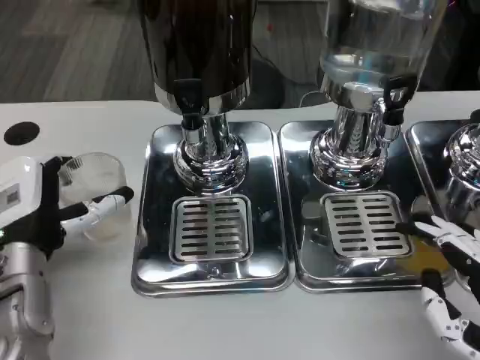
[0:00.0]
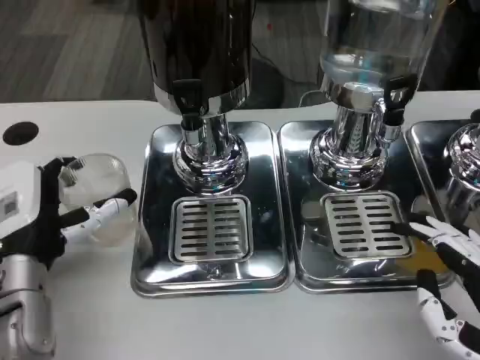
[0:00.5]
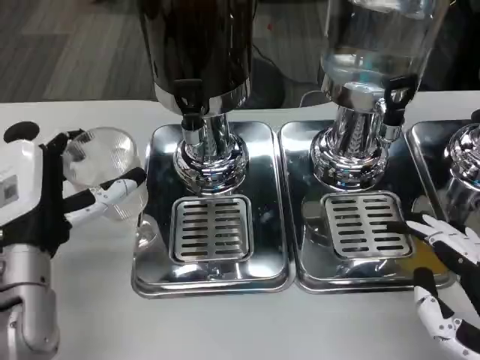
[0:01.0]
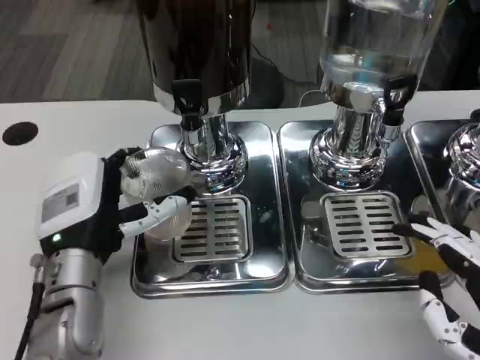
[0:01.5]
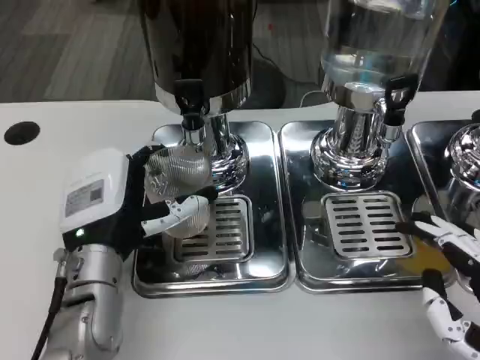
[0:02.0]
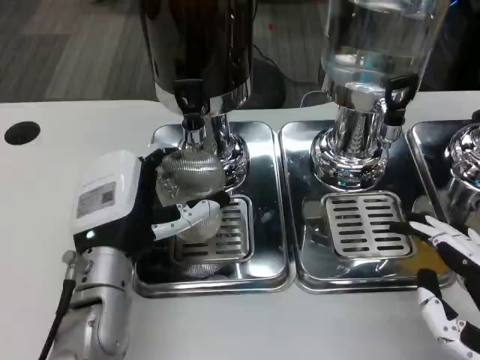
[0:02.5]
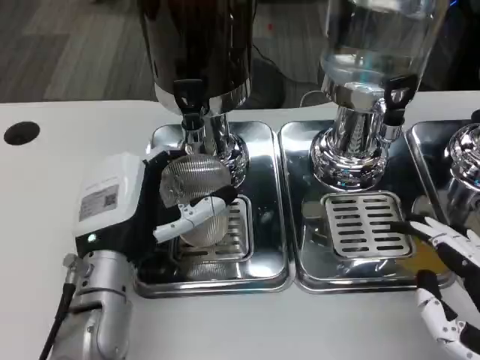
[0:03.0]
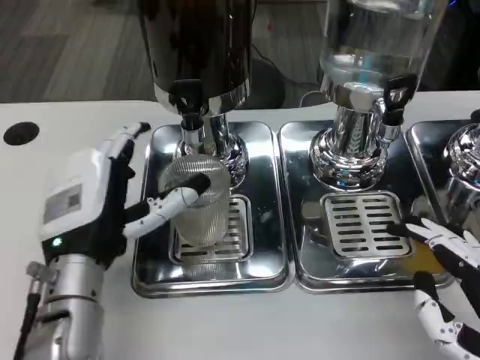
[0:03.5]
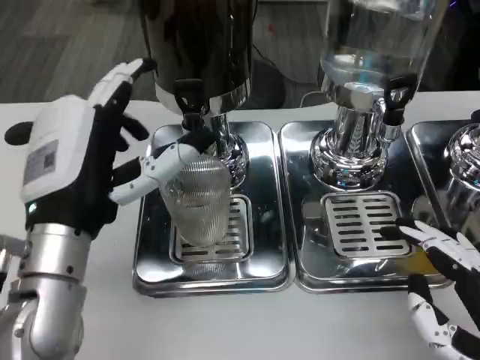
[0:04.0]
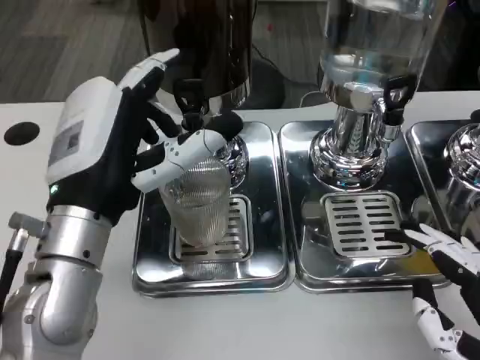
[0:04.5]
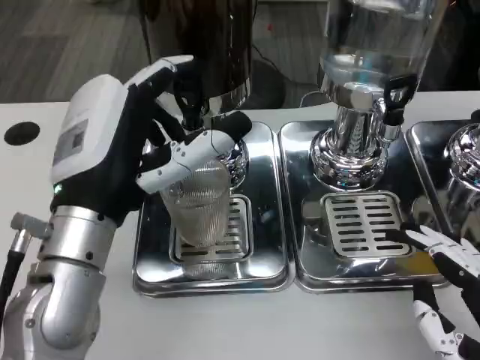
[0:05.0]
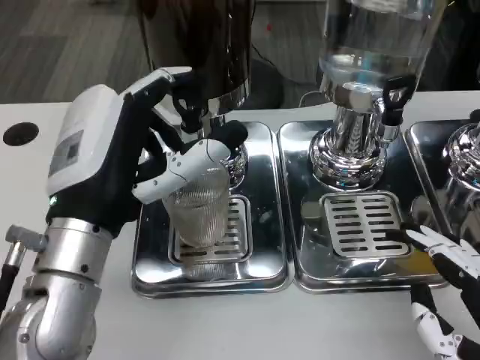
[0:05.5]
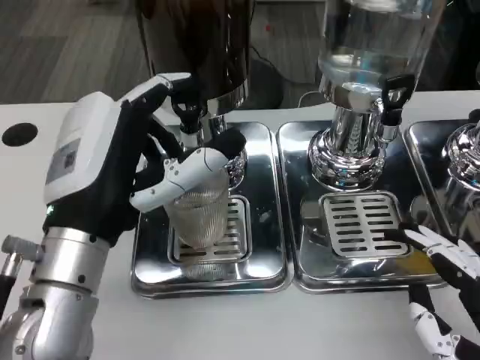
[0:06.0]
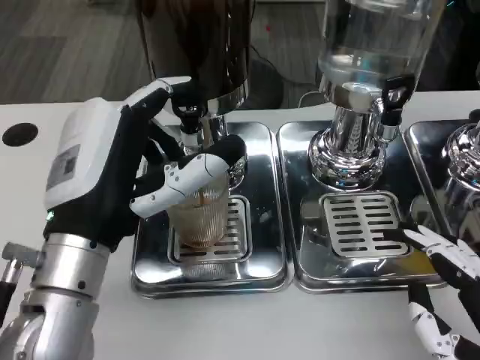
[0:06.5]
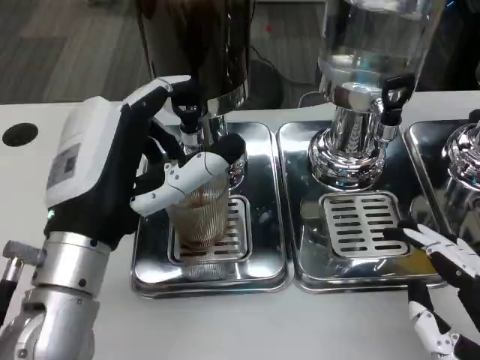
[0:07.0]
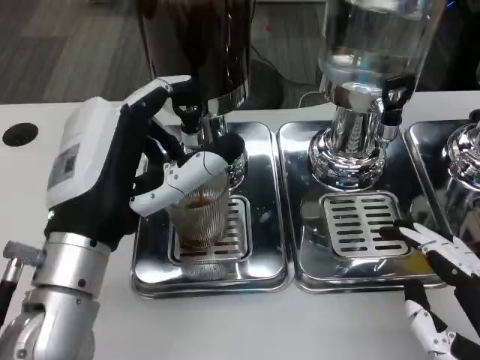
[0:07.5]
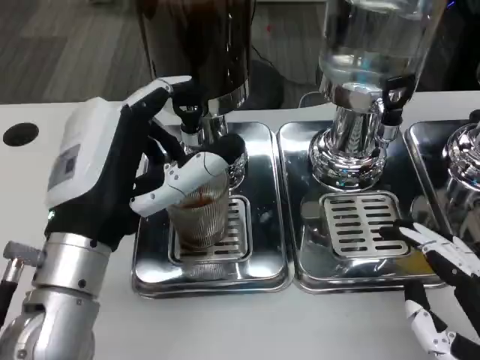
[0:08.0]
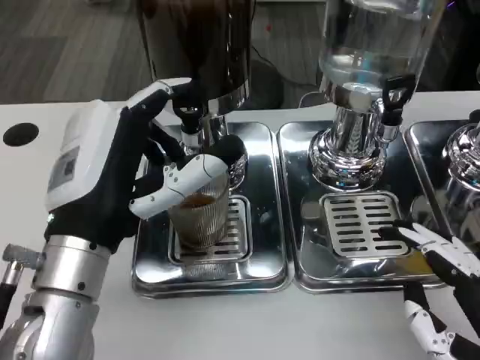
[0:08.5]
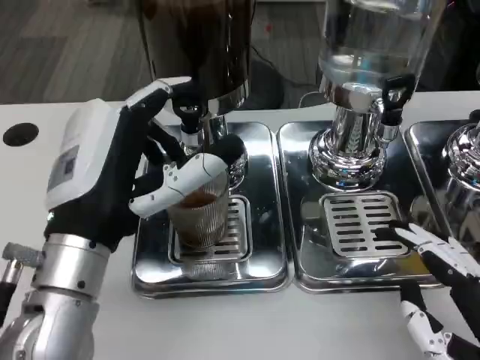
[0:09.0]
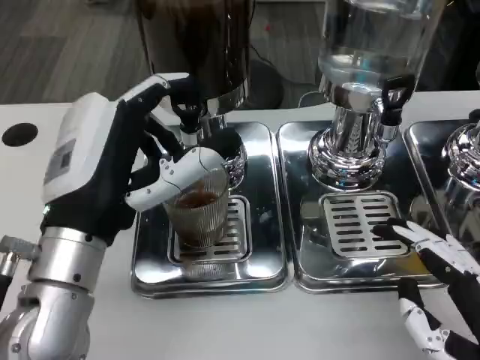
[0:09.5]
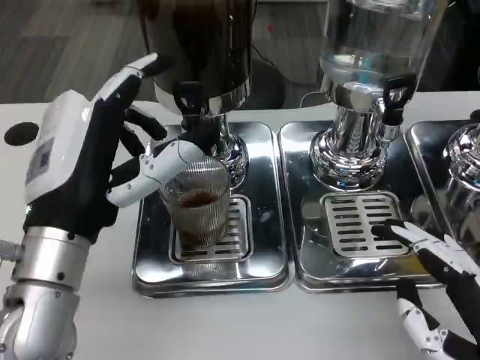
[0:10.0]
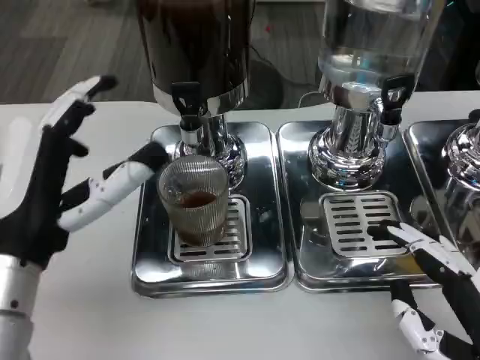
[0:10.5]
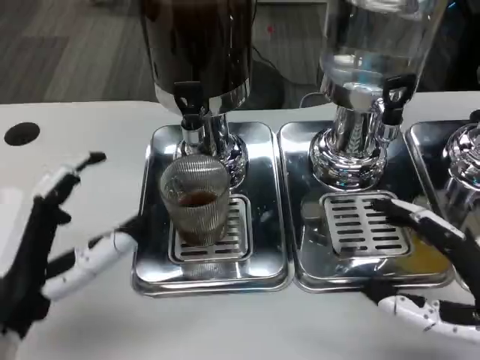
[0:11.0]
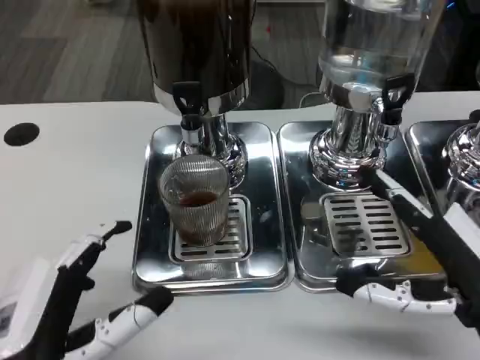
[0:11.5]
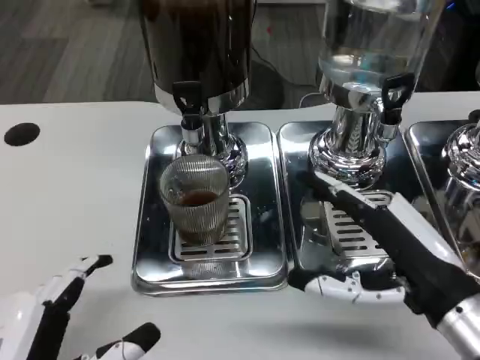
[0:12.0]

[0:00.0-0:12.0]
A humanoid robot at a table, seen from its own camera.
Task of the whole recording: Grasp the cup under the faucet to collect the drink, then remove the cup.
0:00.0 to 0:02.0: The left hand travels to the right by some 5 cm.
0:02.0 to 0:04.0: The left hand is displaced upward by roughly 5 cm.
0:06.0 to 0:08.0: The two hands keep their place.
0:10.0 to 0:12.0: The right hand is displaced forward by some 10 cm. Meanwhile the left hand moves backward and downward, roughly 15 cm.

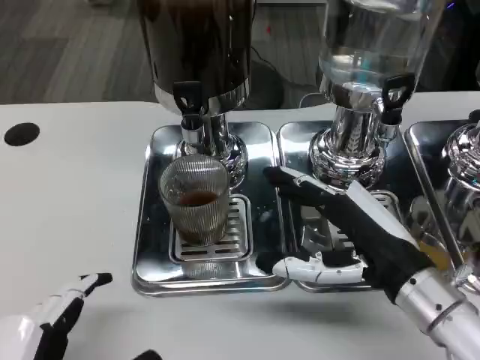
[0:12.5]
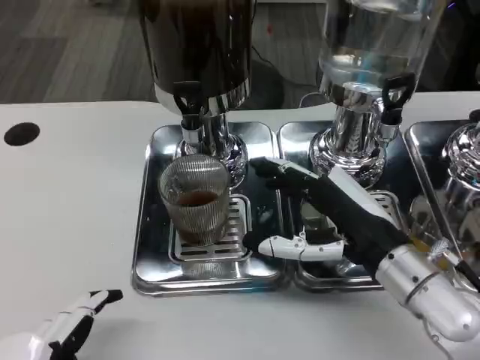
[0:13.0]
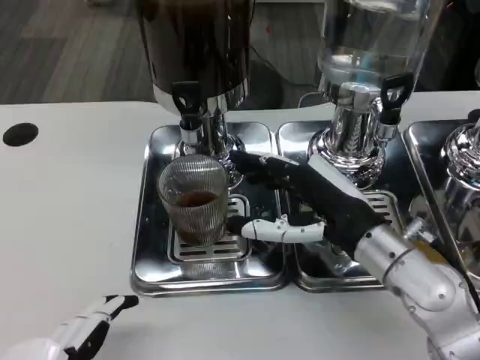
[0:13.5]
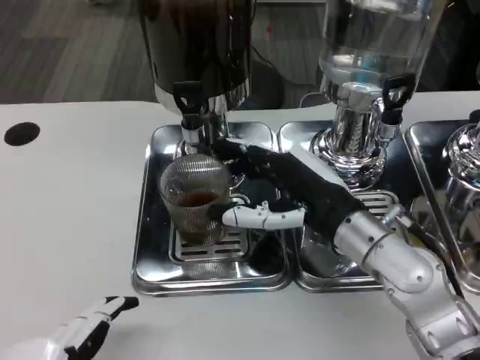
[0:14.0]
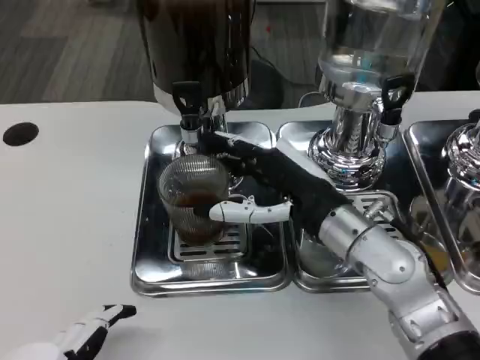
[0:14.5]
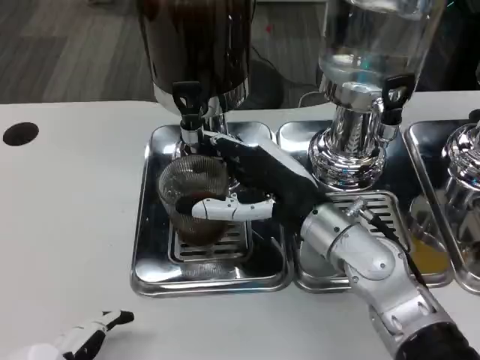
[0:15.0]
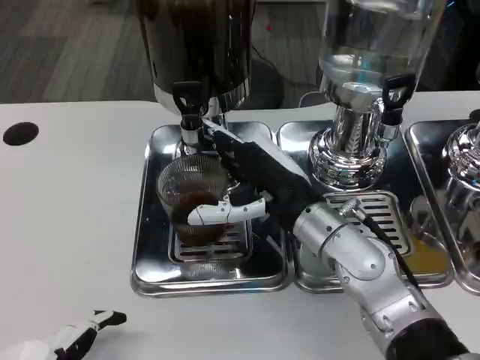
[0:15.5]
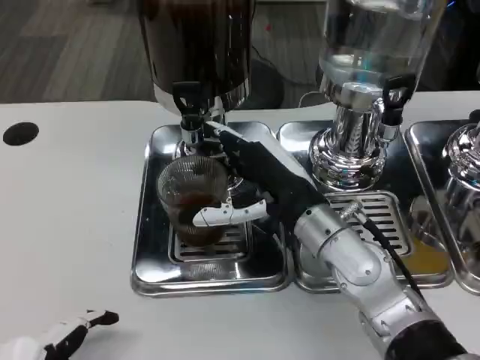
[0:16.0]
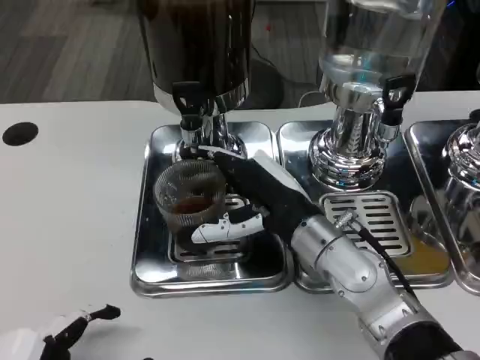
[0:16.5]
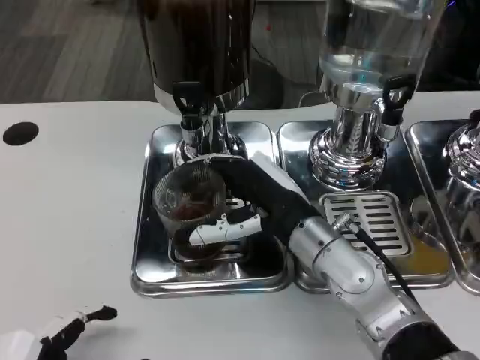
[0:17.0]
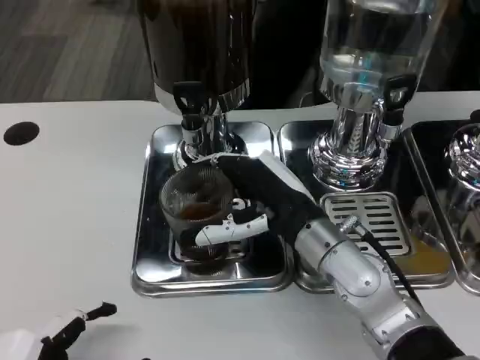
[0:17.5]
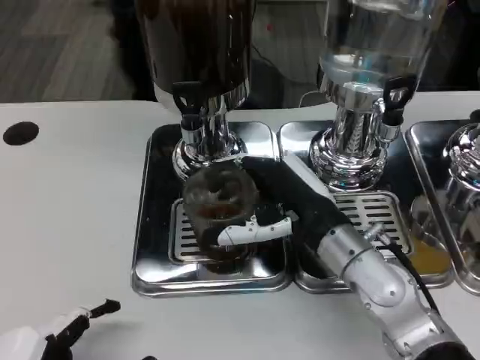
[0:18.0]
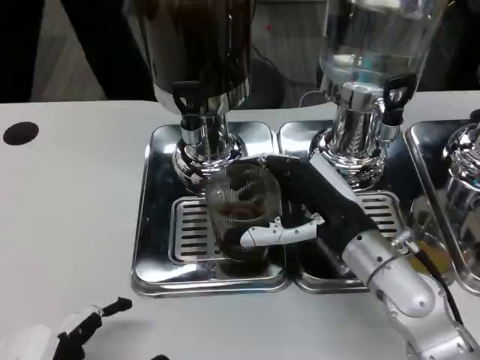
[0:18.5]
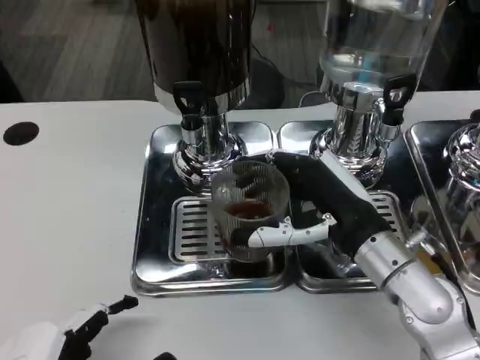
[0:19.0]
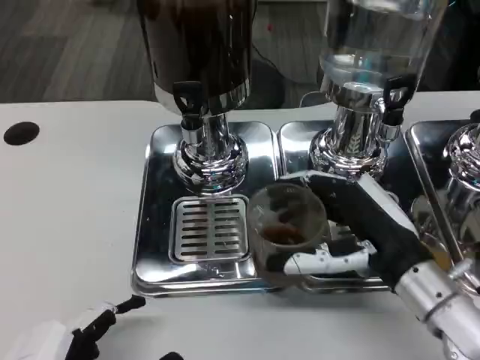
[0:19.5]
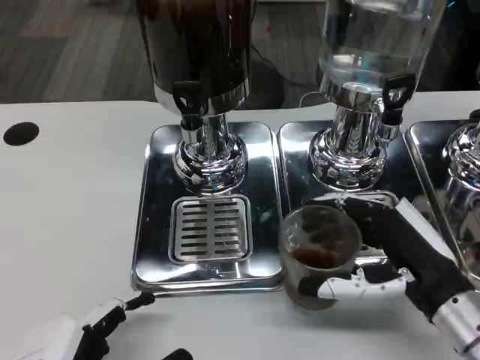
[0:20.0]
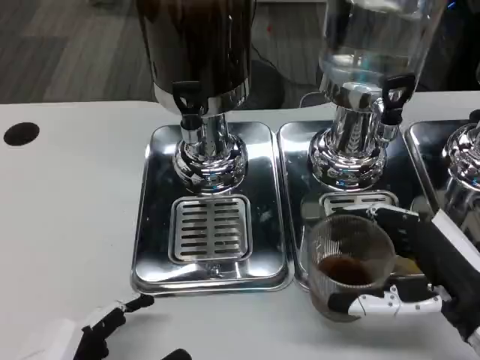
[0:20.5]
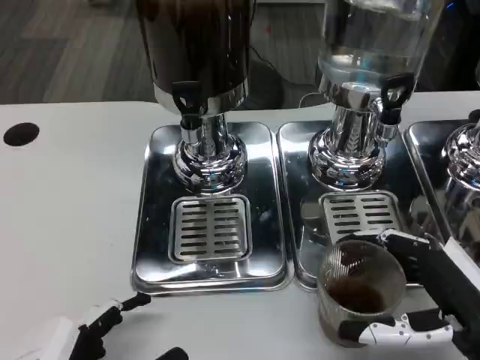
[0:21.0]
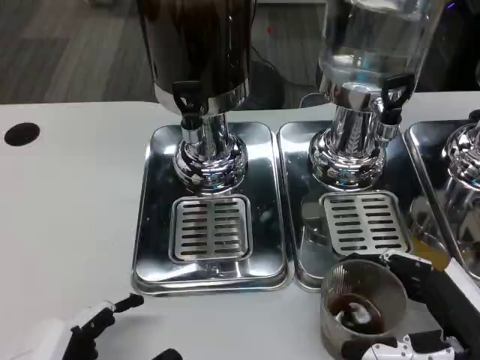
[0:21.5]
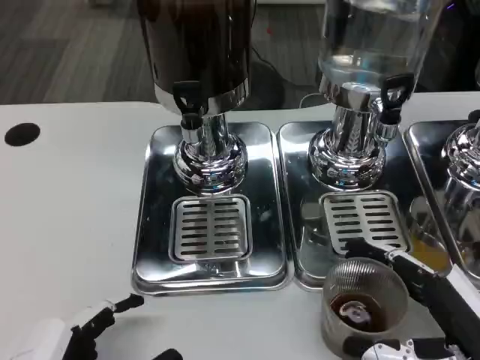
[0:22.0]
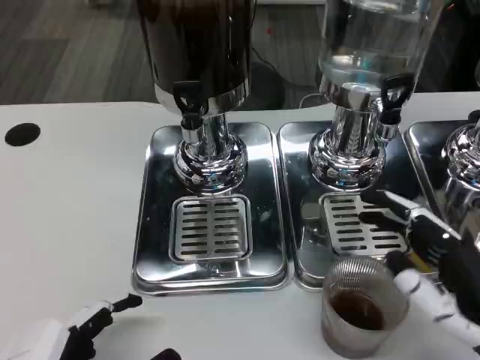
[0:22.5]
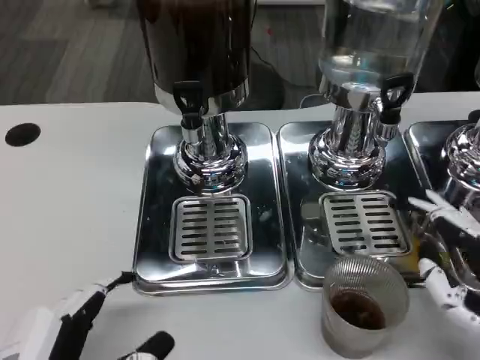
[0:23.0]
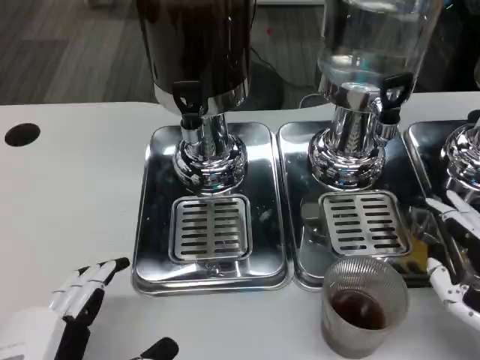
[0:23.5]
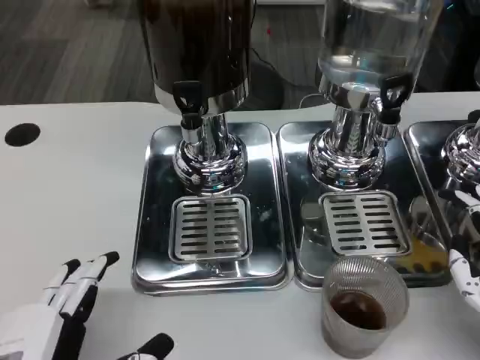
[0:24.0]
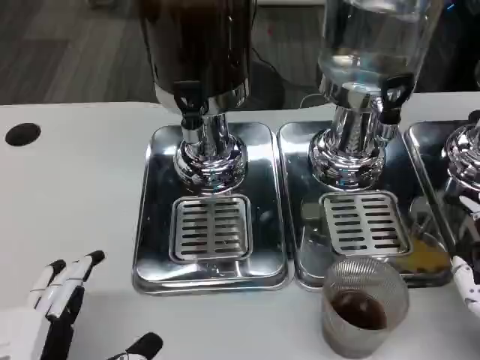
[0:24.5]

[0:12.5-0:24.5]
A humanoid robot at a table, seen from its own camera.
Task of the whole recording: Grasp the cup under the faucet to collect the drink, then remove the cup.
0:12.5 to 0:14.5: The right hand heads forward and to the left, covering roughly 10 cm.
0:14.5 to 0:16.5: There are only small adjustments of the hands.
0:16.5 to 0:18.5: The right hand changes place by approximately 5 cm.
0:18.5 to 0:20.5: The right hand heads backward and to the right, covering some 15 cm.
0:20.5 to 0:22.5: The hands make only small movements.

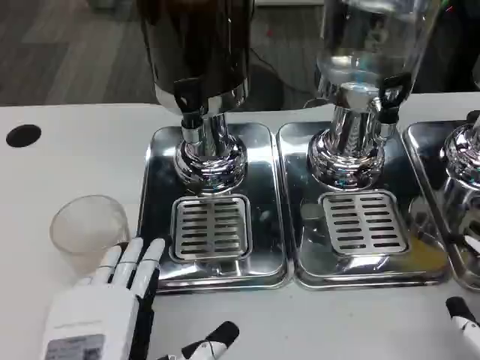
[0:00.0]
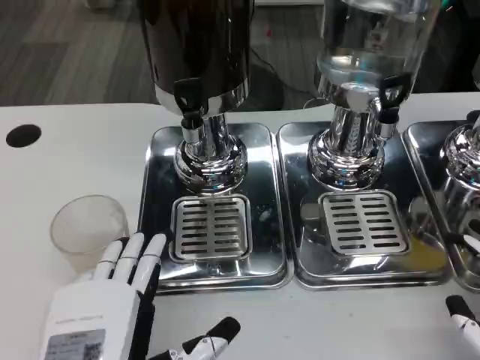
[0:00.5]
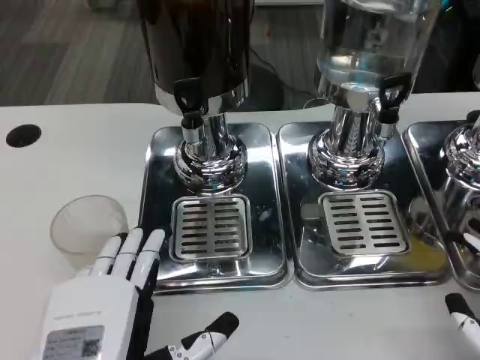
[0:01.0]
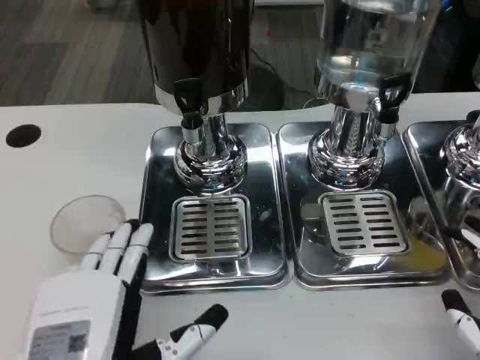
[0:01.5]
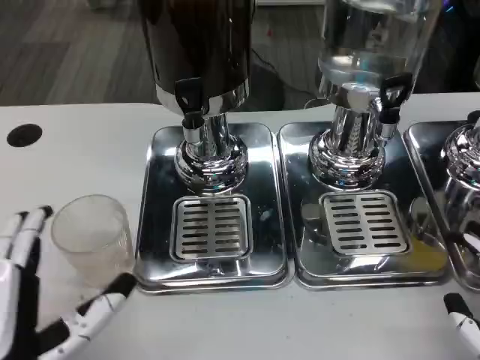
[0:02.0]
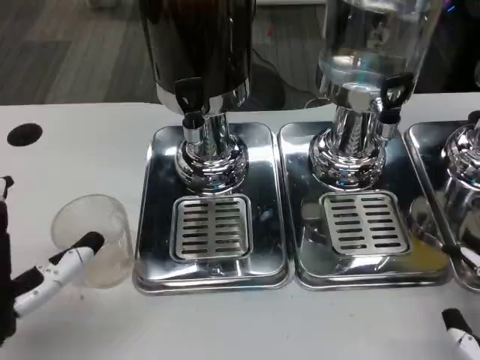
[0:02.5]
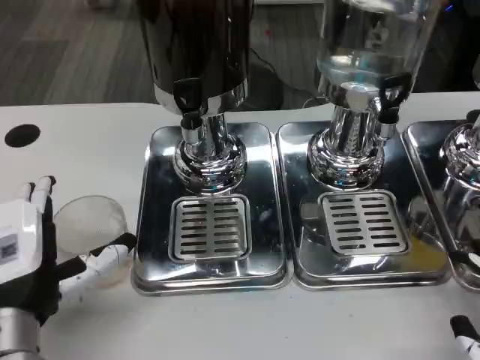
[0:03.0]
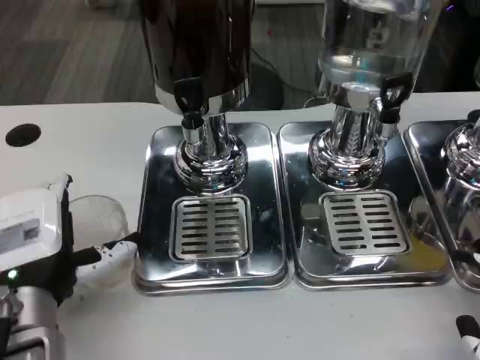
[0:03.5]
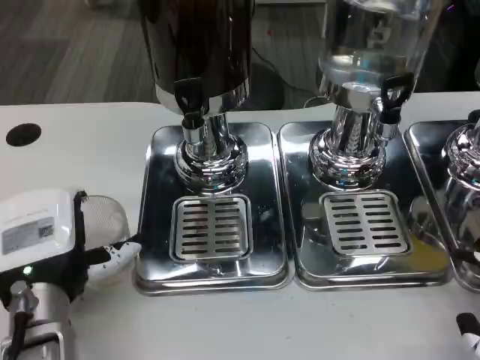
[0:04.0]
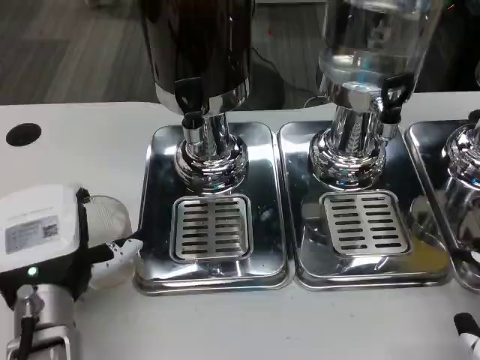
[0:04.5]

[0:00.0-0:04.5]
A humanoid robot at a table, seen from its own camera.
Task of the whole recording: Grasp the cup under the faucet to collect the drink, then remove the cup.
0:00.0 to 0:02.0: The left hand moves some 5 cm.
0:02.0 to 0:04.5: The left hand moves forward, approximately 10 cm.
